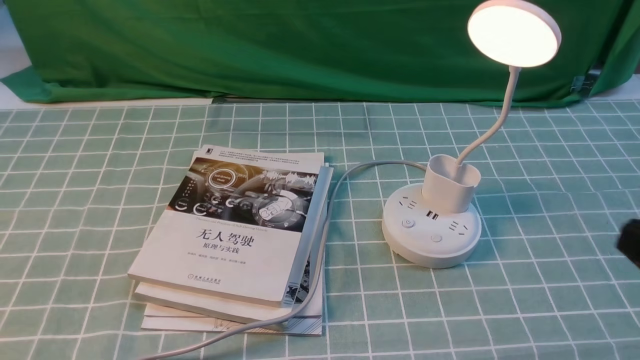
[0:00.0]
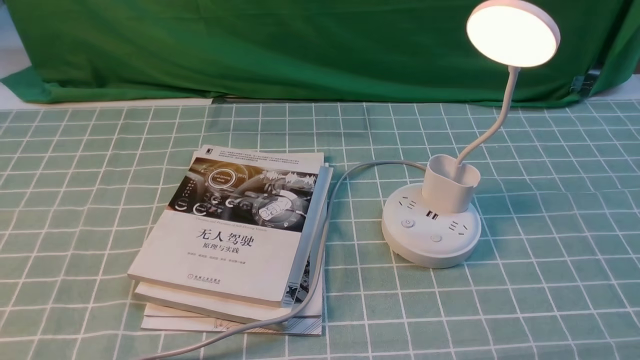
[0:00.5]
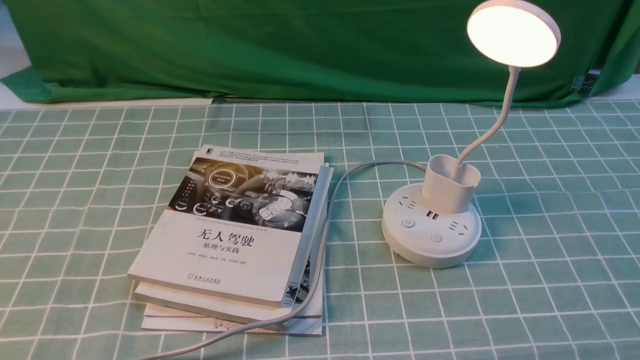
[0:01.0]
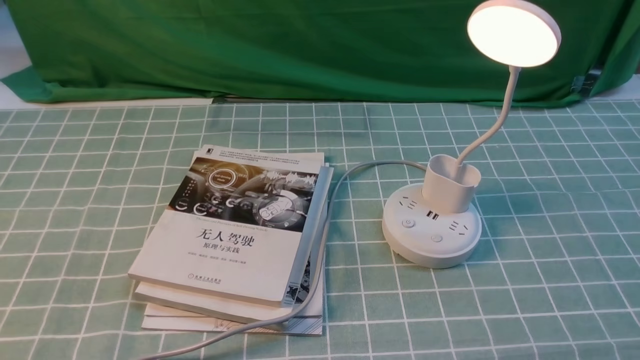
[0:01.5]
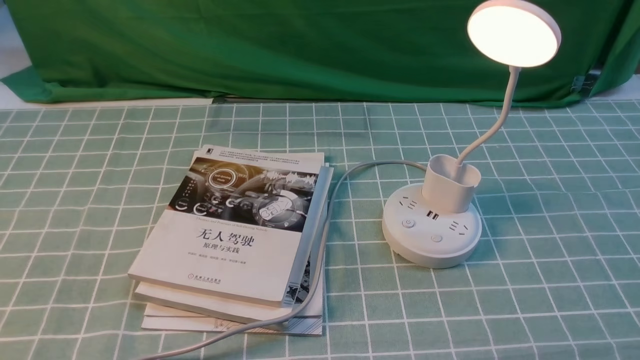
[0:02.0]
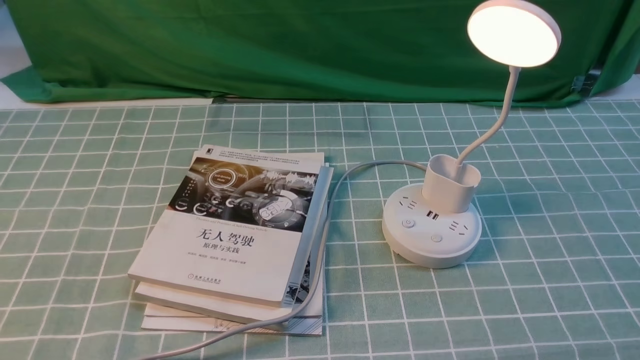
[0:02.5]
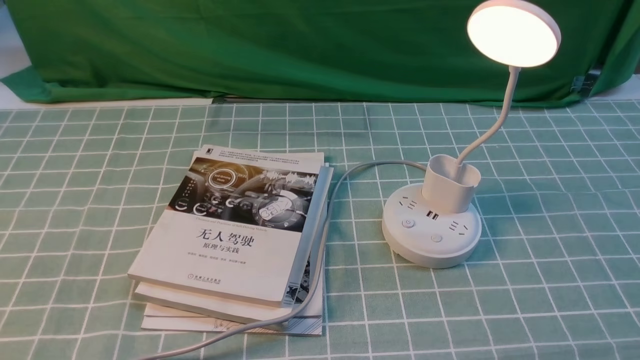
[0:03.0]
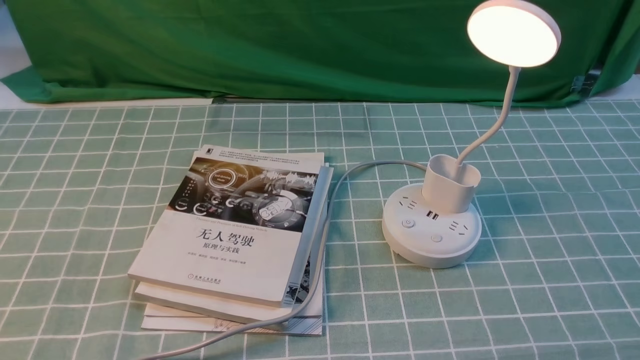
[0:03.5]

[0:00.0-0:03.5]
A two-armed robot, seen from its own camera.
0:02.0 to 0:03.5: Both grippers stay put.
